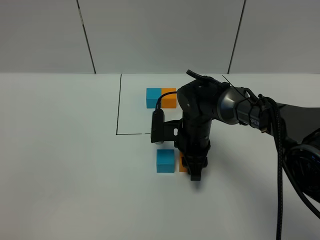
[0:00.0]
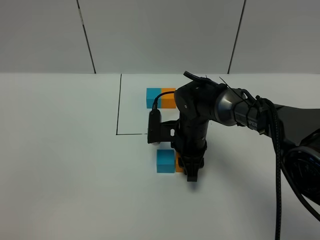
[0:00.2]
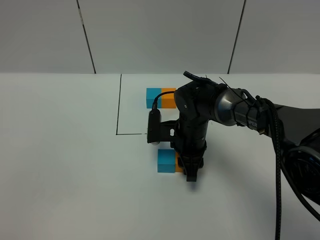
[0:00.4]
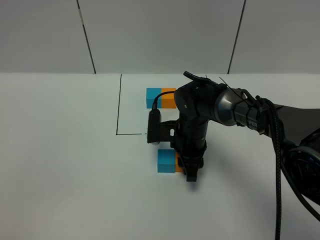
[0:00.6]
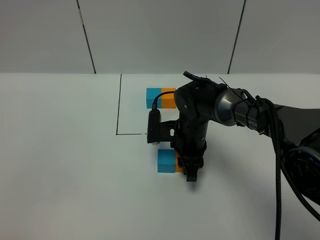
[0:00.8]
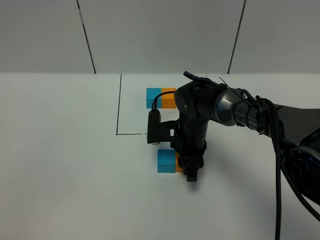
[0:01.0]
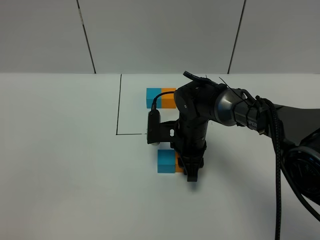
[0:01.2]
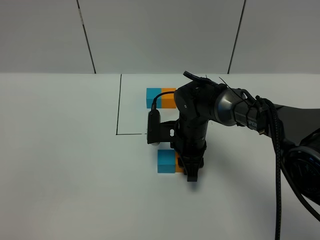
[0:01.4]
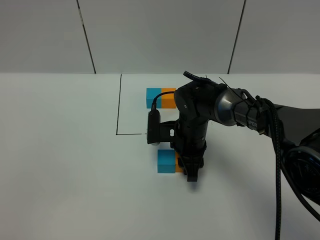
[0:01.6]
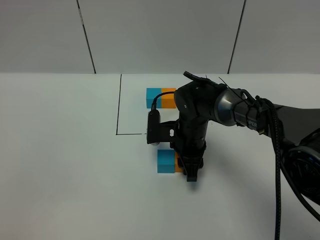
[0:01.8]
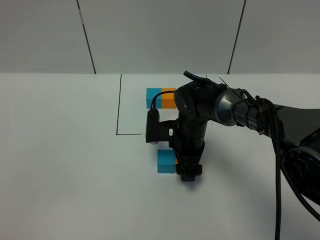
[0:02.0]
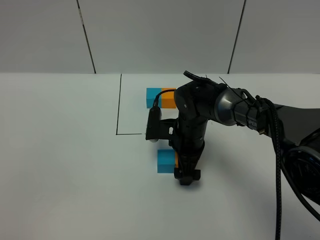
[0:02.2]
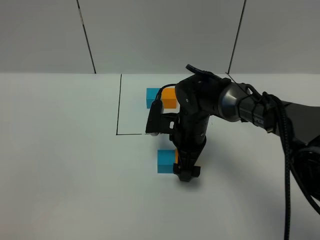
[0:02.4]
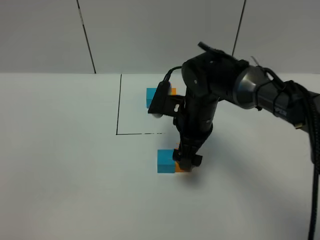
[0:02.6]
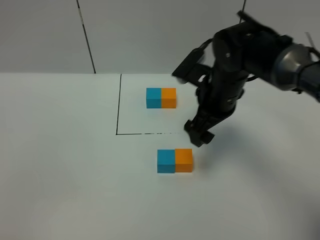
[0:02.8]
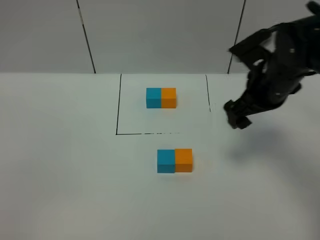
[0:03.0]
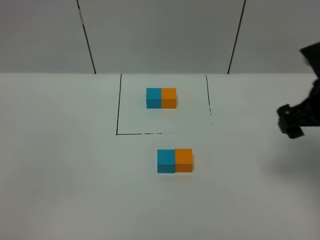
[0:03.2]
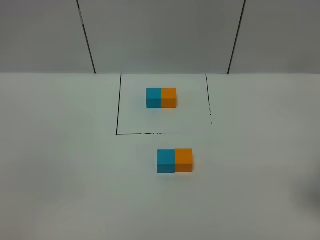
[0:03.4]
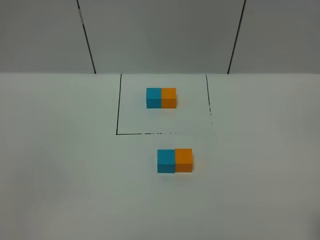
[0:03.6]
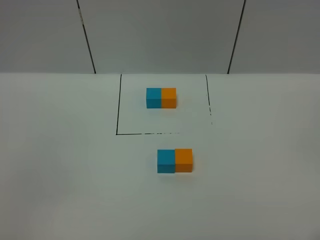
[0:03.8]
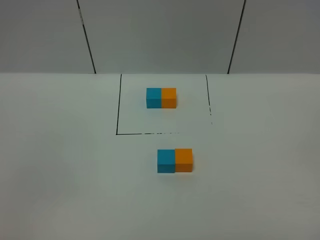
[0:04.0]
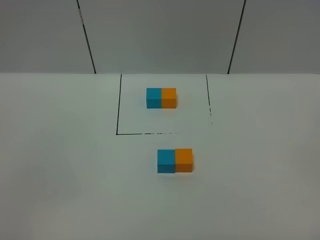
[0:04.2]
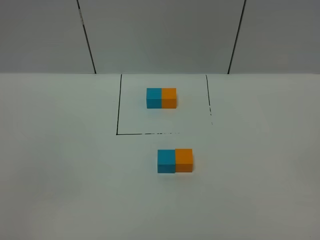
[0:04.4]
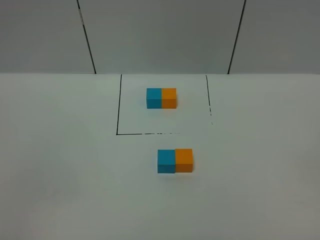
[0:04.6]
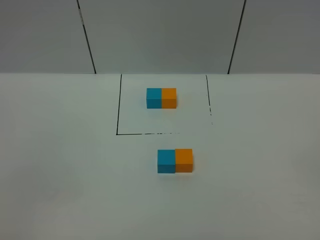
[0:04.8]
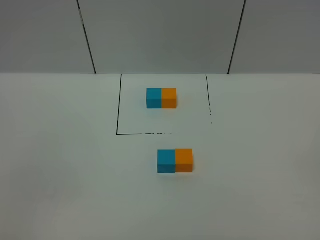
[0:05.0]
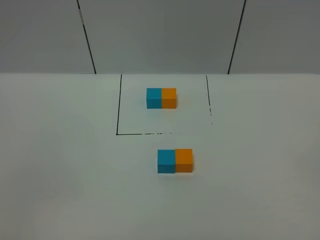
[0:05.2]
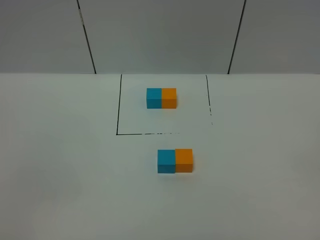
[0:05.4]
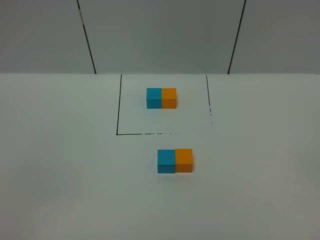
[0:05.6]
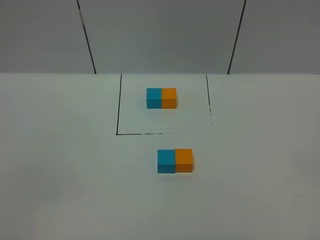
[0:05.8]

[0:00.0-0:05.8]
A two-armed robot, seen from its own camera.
Task of the whole recording: According to the building block template in front, assemble the scattered blocks together.
Step, 0.0 to 2.4 s: Put the orange cube on the right of the blue cube.
0.0 to 1.4 s: Both grippers stay about where they are.
1.4 to 2.8 s: The right gripper goes some 15 cm upward and to the right, and opens up.
2.8 to 4.4 s: The right gripper shifts roughly 40 cm backward and to the right.
4.4 to 5.8 s: Both grippers stay put.

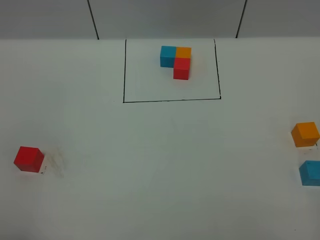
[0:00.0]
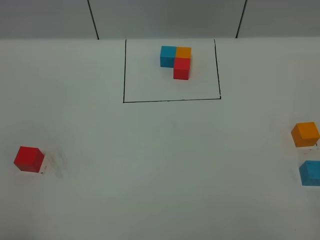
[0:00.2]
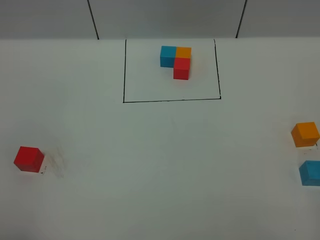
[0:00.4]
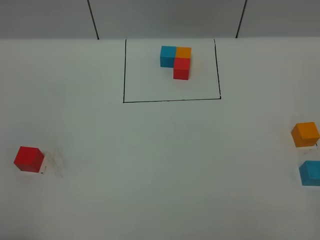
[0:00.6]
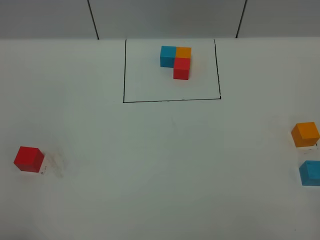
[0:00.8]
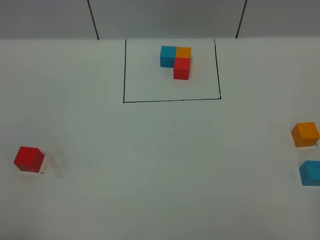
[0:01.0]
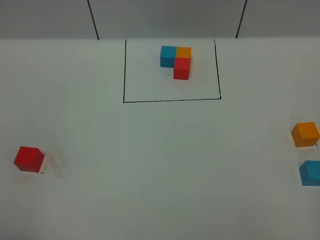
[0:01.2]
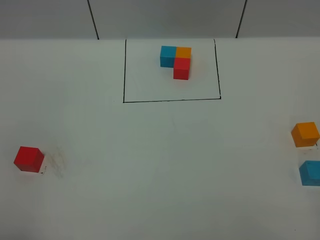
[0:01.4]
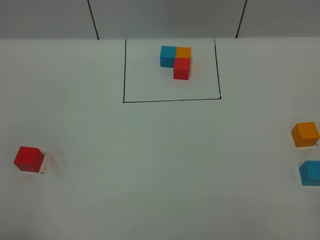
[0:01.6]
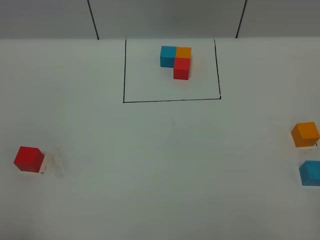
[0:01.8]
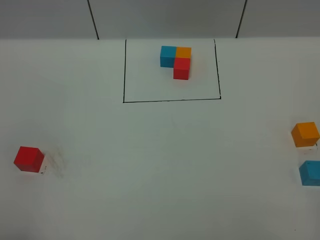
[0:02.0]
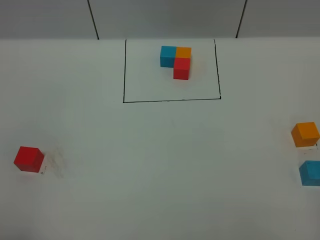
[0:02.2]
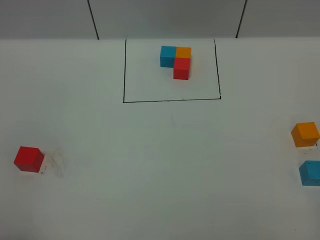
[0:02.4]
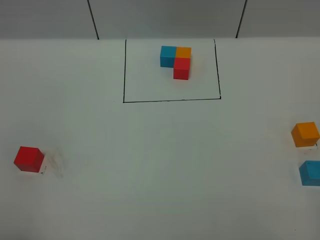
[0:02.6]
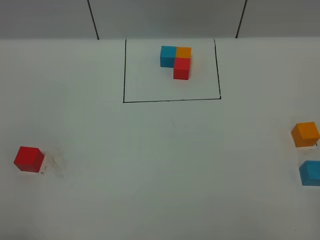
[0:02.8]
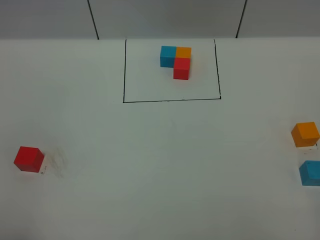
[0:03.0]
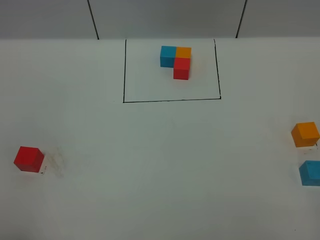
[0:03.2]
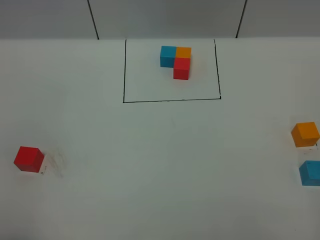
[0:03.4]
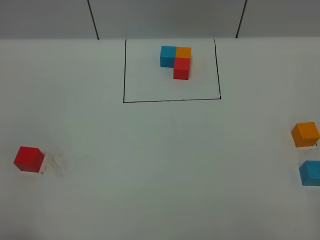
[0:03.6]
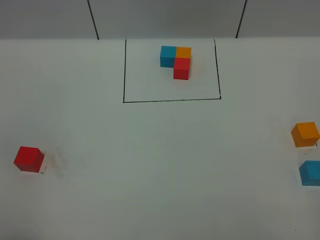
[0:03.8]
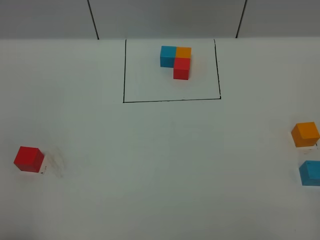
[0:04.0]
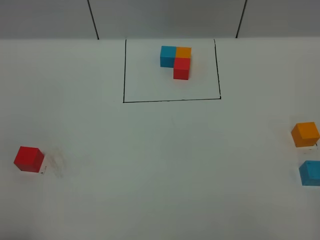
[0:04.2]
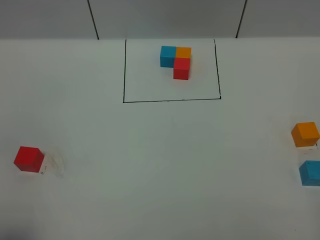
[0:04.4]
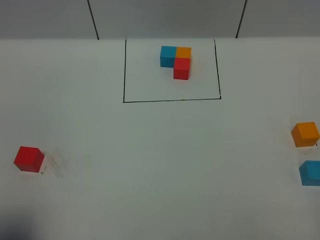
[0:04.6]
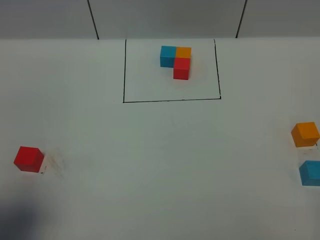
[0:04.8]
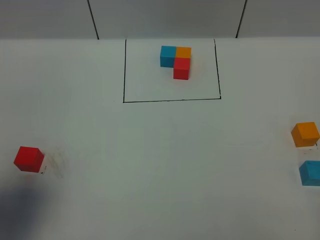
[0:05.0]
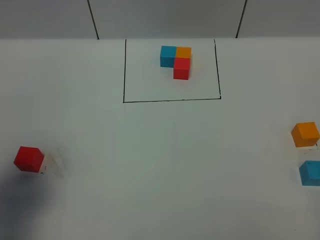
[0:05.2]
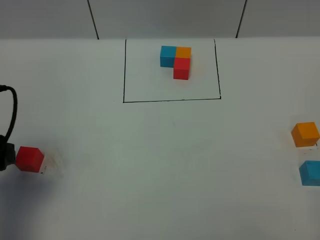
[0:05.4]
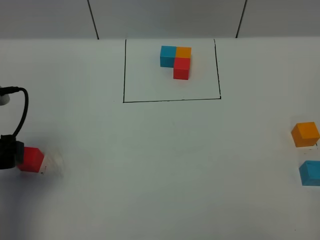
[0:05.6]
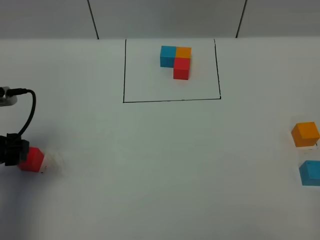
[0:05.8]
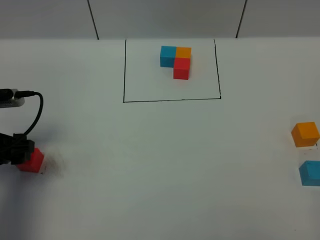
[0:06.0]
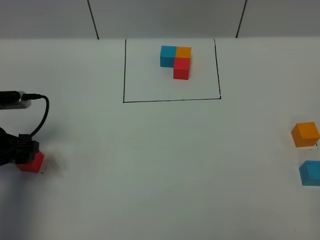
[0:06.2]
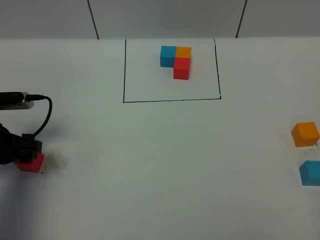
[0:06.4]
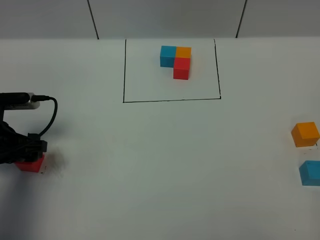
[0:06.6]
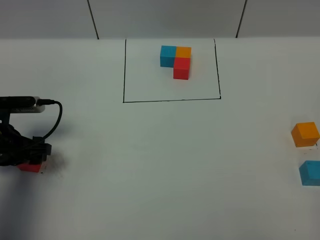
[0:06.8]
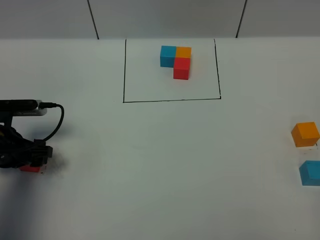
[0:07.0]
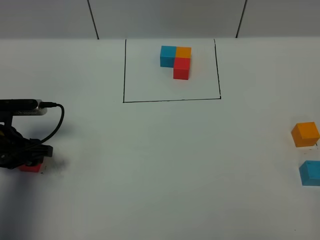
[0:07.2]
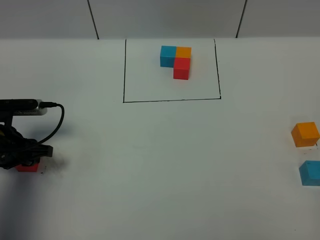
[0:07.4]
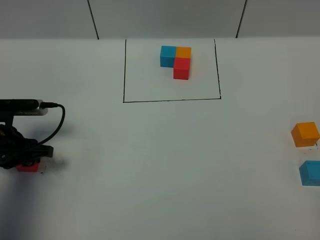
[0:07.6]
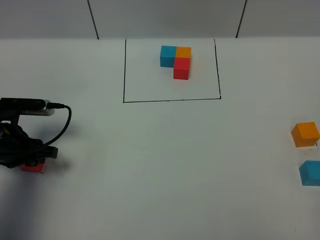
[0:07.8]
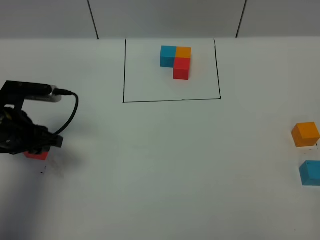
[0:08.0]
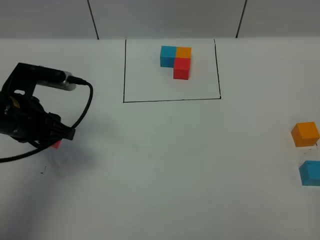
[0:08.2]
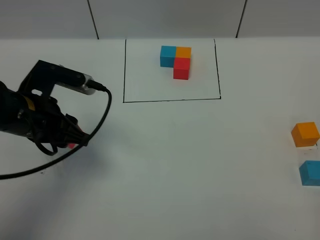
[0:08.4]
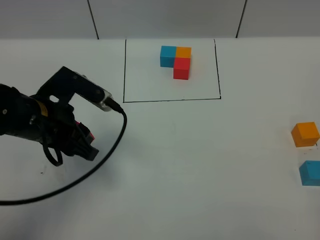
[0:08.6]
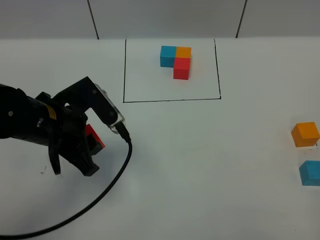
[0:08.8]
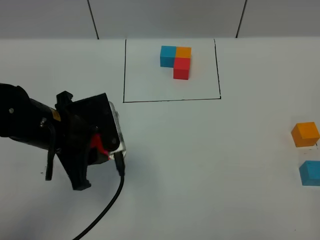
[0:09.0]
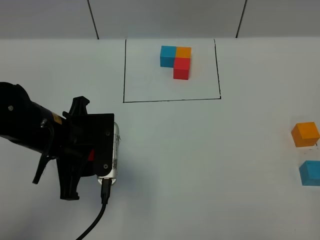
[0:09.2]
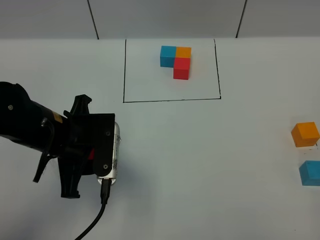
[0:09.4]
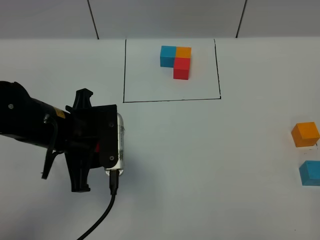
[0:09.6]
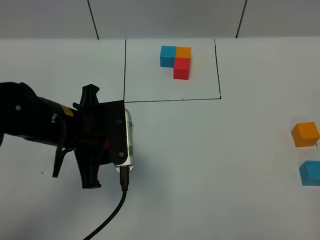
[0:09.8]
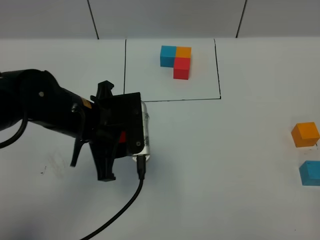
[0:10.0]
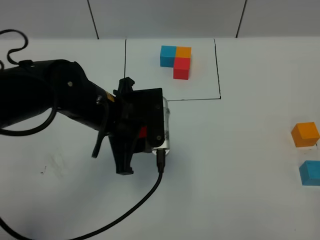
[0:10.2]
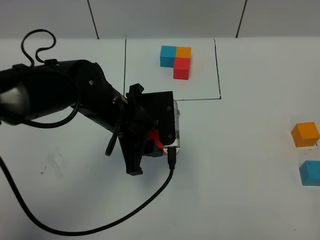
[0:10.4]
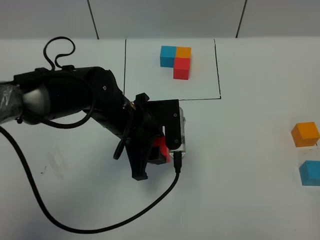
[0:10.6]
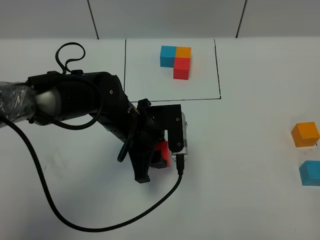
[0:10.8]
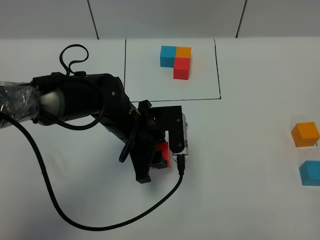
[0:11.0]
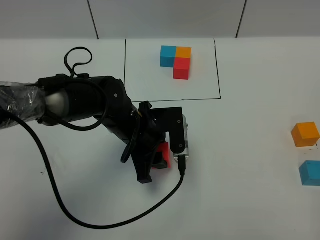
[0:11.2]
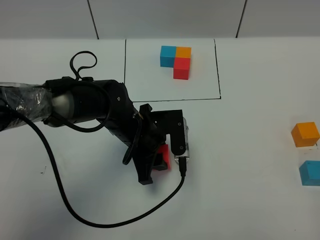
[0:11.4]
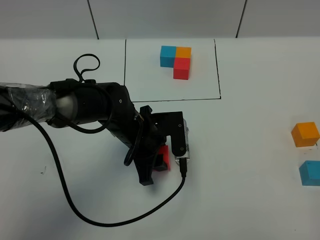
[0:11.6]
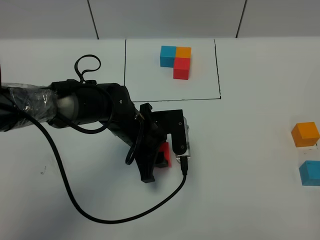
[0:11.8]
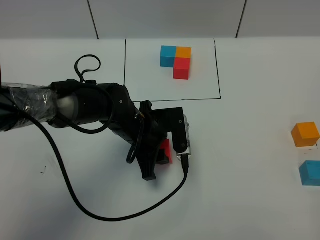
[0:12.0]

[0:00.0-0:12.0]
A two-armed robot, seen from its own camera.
Task of the whole recording: According to the building block template in front, assemble the scattered blocks together.
0.0 to 3.0 s: Both grippers stay about where they are.
4.4 to 6.0 s: The left gripper shifts roughly 25 cm forward and downward.
6.0 to 7.6 s: The left gripper goes approximately 5 cm downward, and closes its fingers.
7.6 to 9.0 s: The left gripper moves to the right and upward, approximately 15 cm.
9.0 to 10.4 s: The left gripper is displaced to the right by about 10 cm.
10.4 to 12.0 s: The left gripper is displaced downward by about 5 cm.

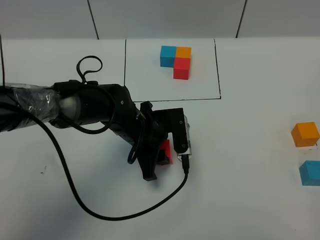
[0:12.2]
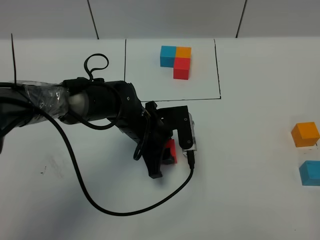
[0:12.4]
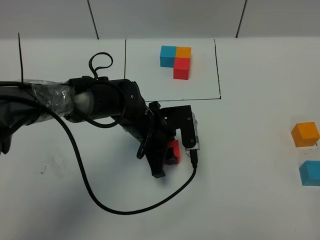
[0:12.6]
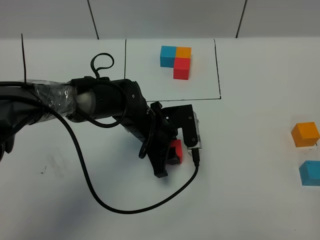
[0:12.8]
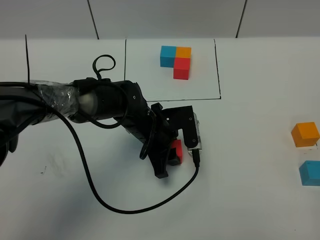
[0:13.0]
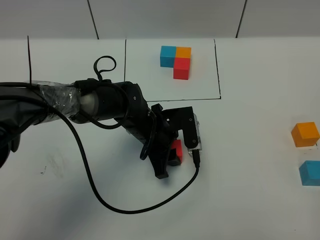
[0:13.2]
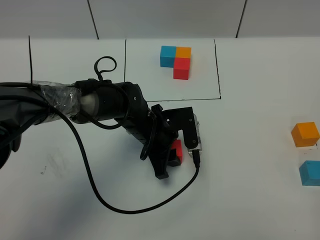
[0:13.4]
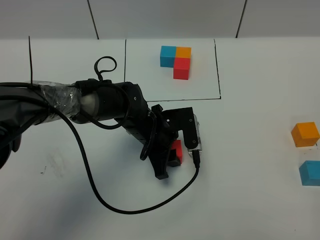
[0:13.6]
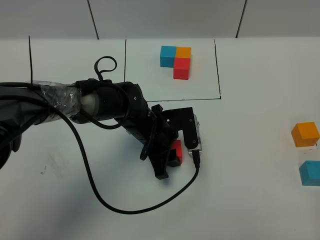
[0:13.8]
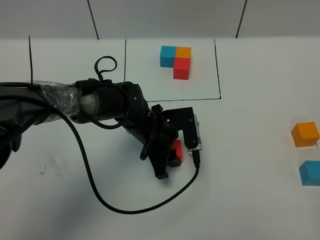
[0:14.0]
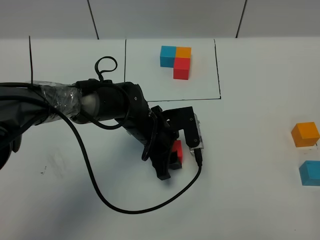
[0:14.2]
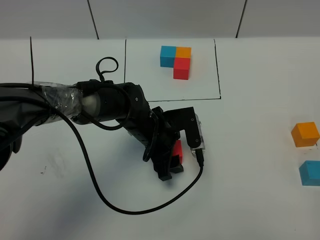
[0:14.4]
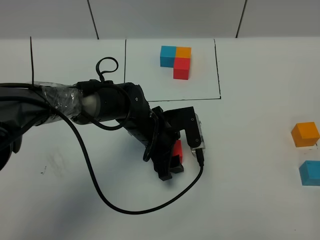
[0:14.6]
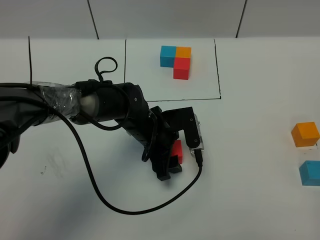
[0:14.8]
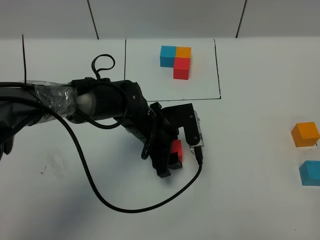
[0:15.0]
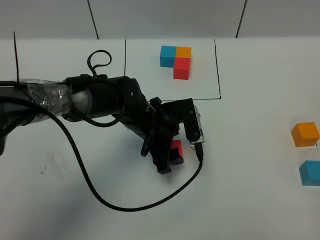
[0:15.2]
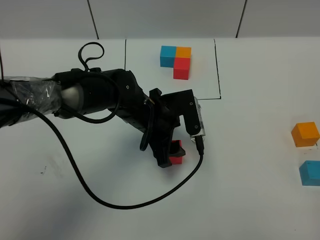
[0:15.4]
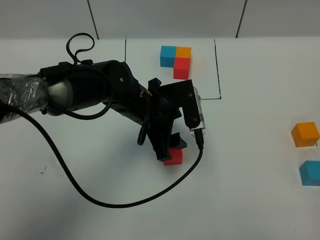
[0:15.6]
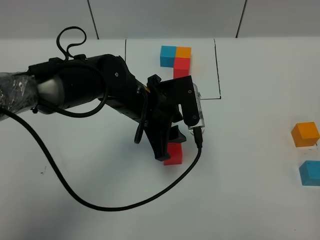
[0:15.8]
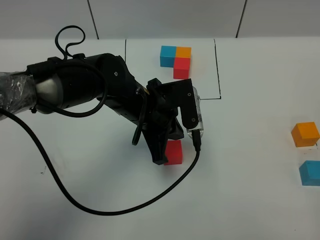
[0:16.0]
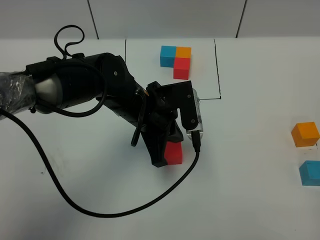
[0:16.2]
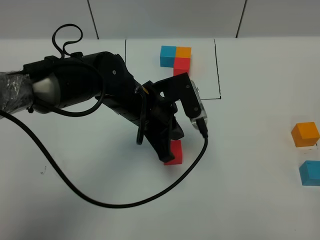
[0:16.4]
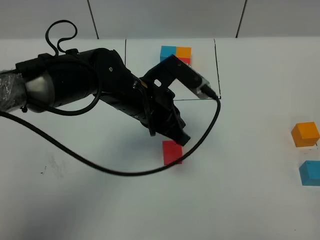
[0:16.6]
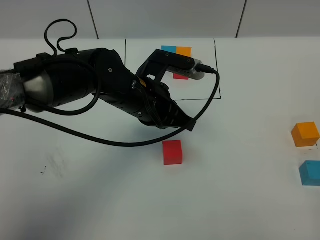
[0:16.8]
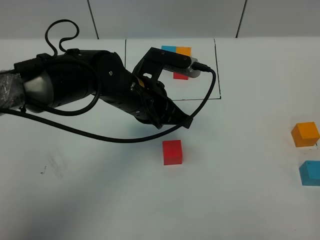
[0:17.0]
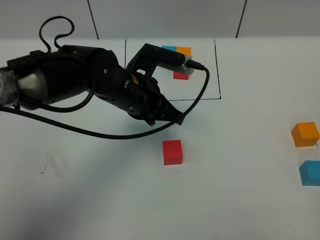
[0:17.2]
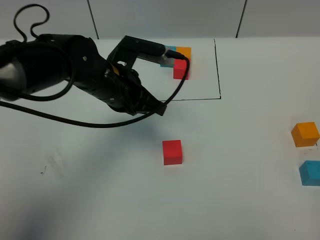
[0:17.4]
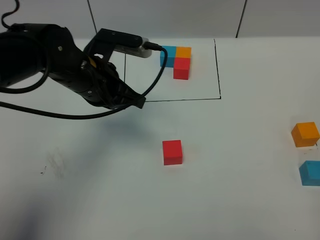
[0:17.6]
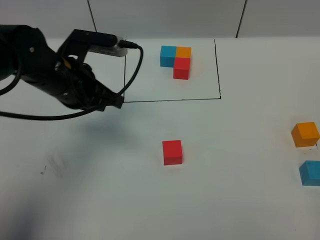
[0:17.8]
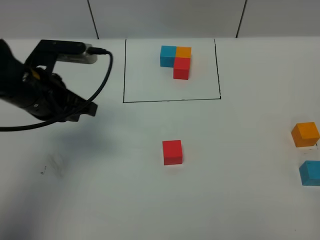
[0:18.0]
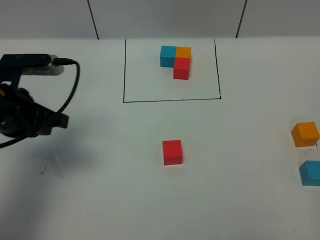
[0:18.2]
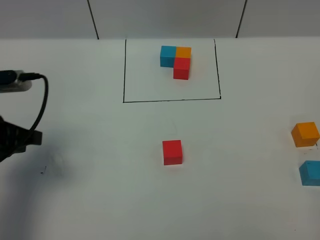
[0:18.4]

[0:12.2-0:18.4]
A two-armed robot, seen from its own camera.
Task of the whole recording: According to the building block template in front, assemble the scattered blocks together.
Step, 12.2 to 16.0 s: Put the red cube in the center of the table.
12.2 to 13.8 s: The grippers move only a little.
13.8 to 15.4 s: The left gripper shifts approximately 5 cm upward.
15.4 to 16.8 s: The left gripper is displaced upward by roughly 5 cm, and closes its fingers.
16.8 to 18.4 s: The left gripper moves to the left, roughly 25 cm.
